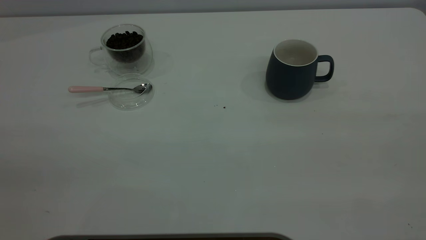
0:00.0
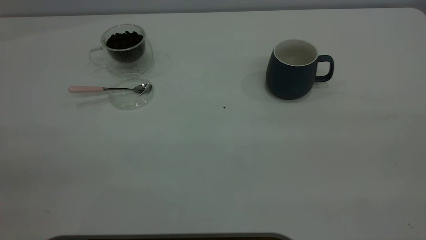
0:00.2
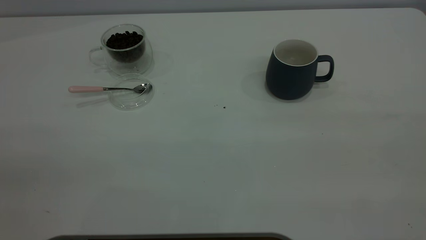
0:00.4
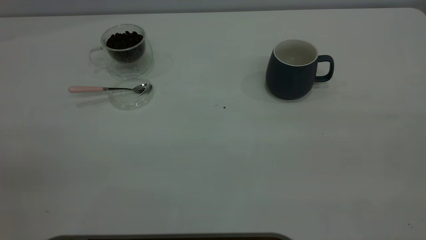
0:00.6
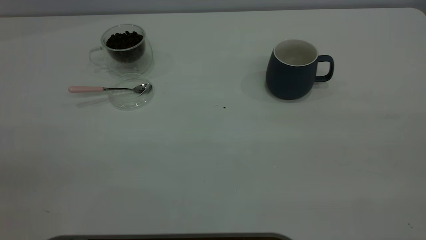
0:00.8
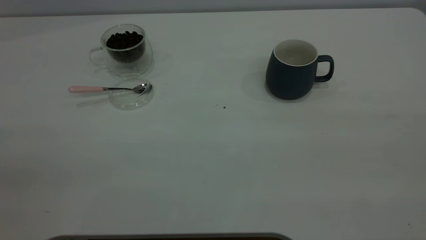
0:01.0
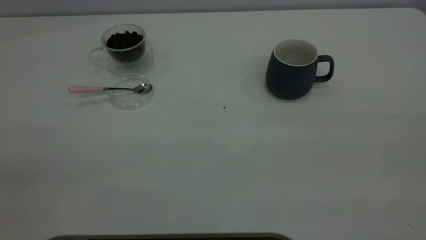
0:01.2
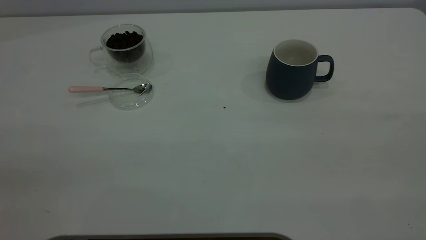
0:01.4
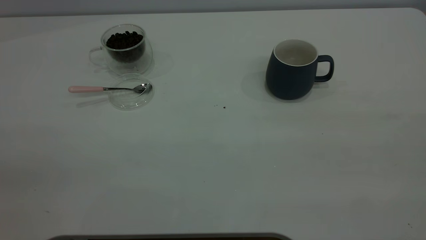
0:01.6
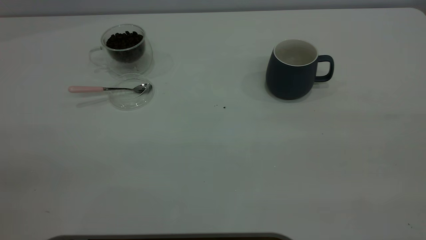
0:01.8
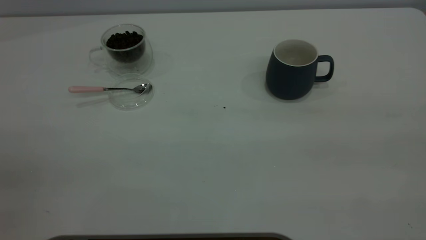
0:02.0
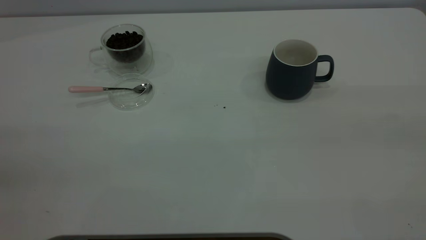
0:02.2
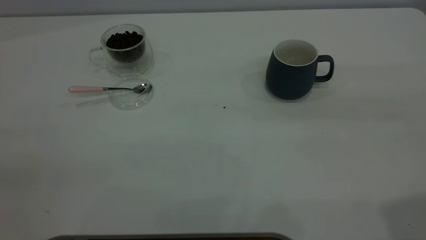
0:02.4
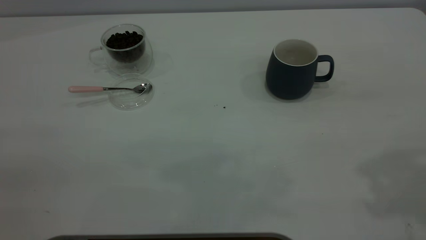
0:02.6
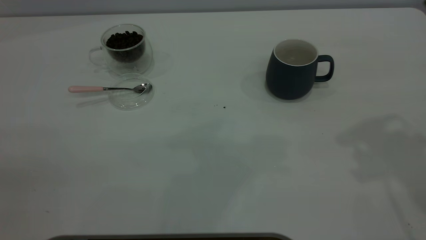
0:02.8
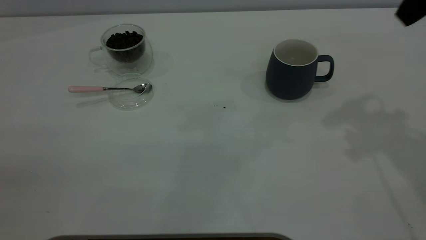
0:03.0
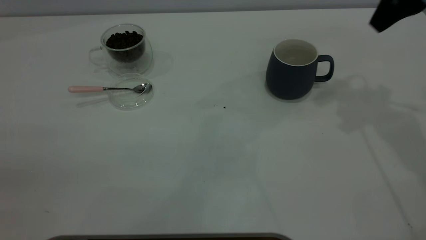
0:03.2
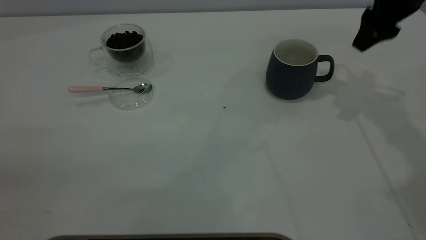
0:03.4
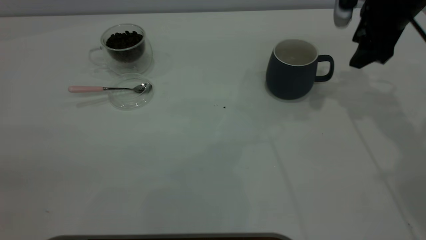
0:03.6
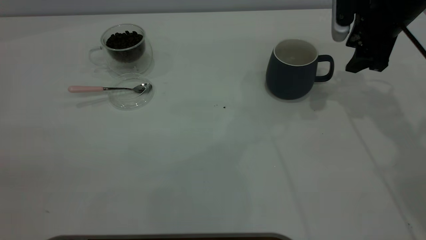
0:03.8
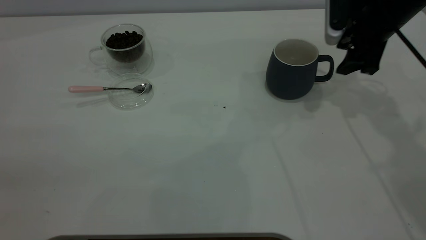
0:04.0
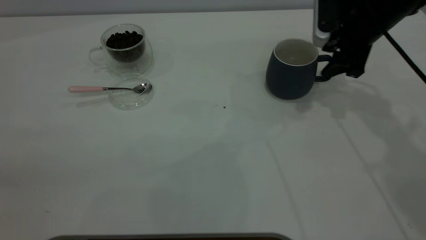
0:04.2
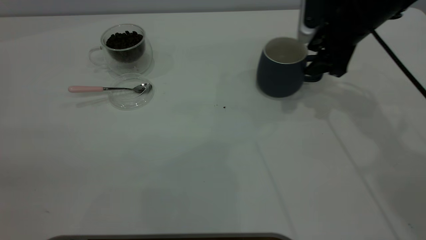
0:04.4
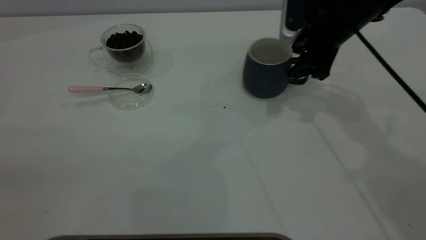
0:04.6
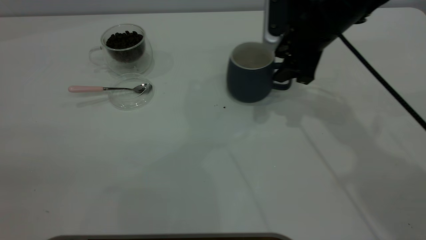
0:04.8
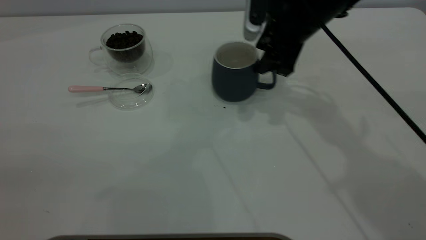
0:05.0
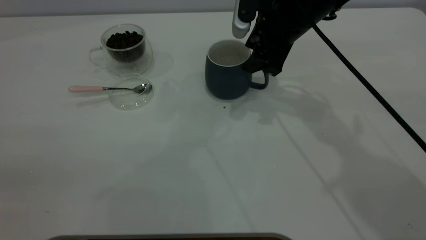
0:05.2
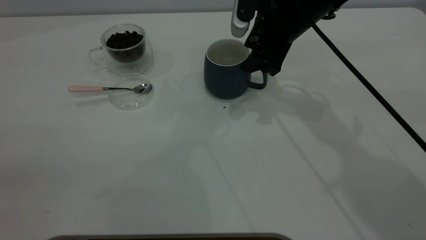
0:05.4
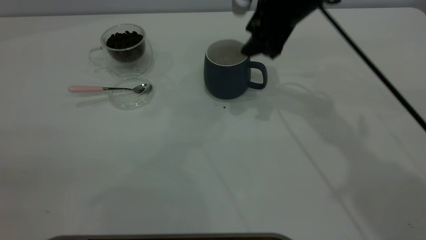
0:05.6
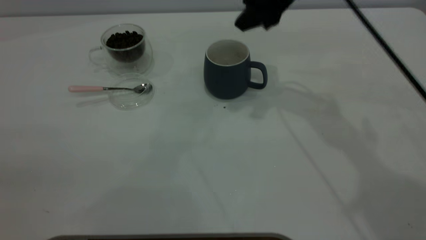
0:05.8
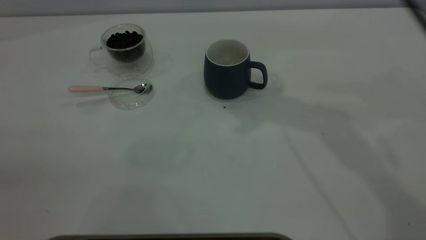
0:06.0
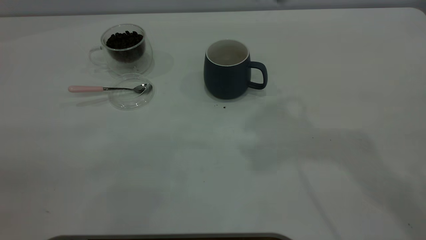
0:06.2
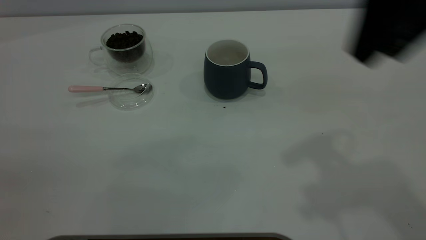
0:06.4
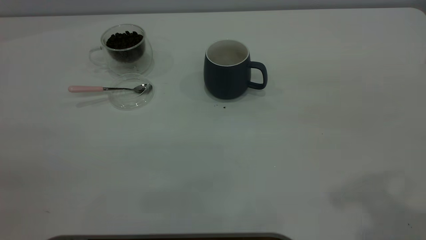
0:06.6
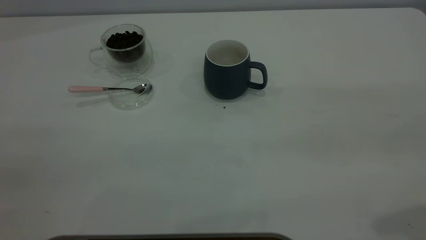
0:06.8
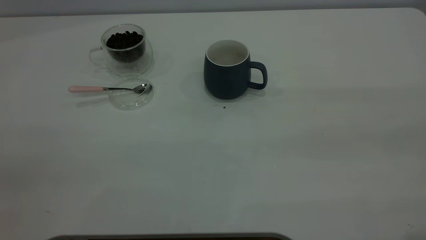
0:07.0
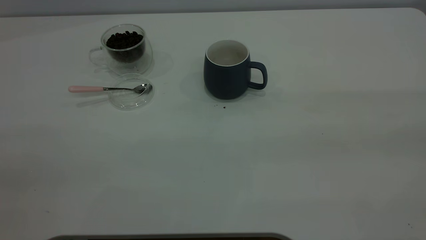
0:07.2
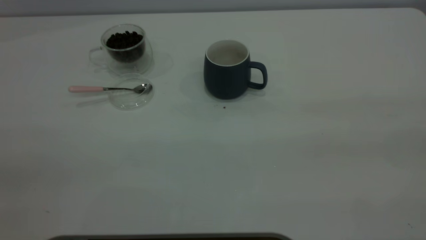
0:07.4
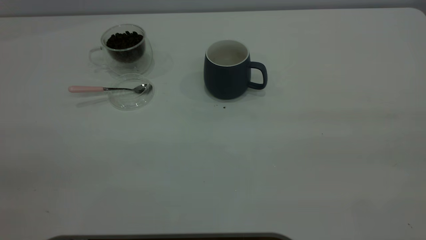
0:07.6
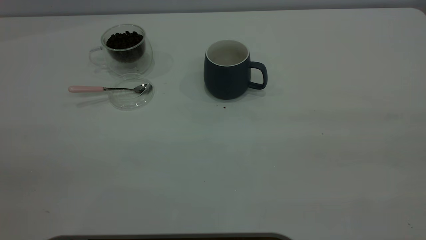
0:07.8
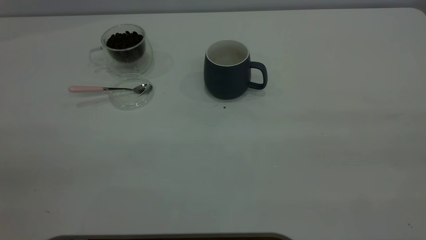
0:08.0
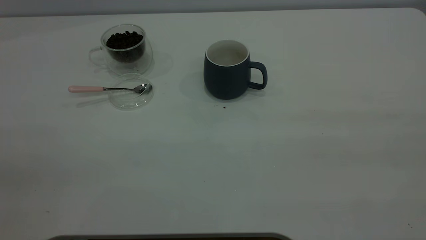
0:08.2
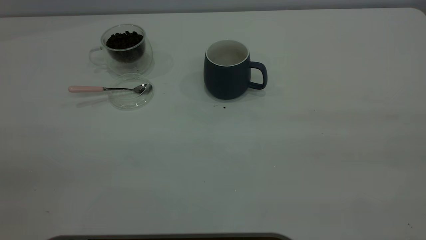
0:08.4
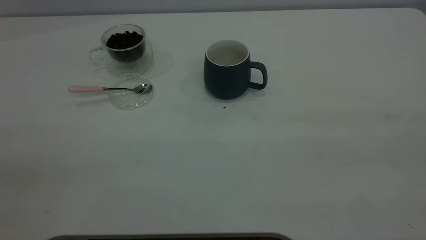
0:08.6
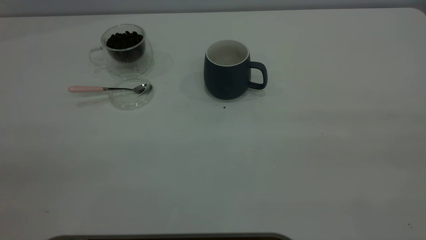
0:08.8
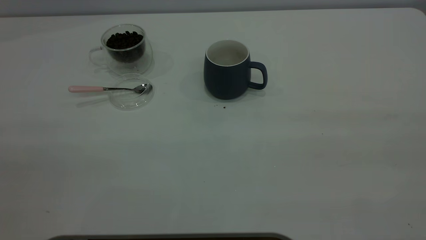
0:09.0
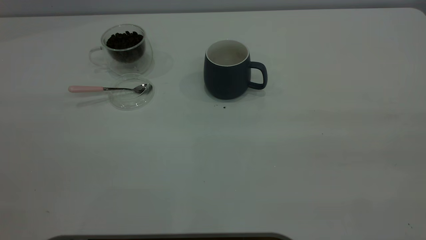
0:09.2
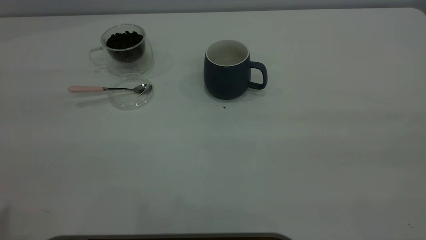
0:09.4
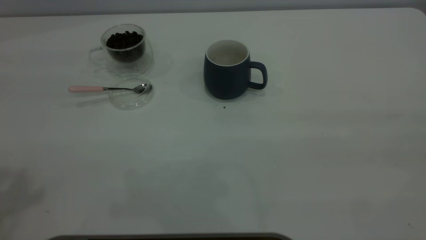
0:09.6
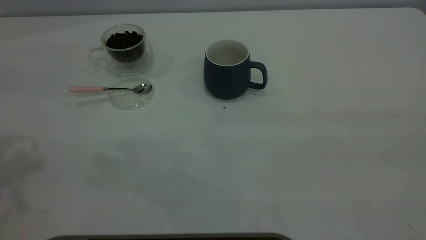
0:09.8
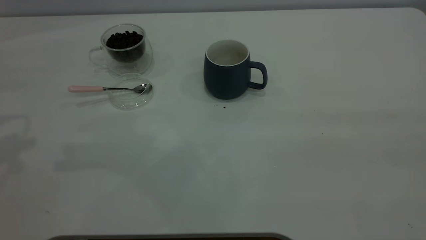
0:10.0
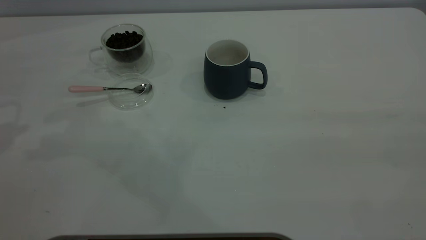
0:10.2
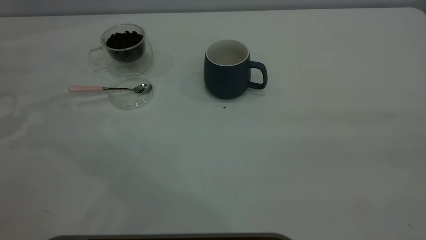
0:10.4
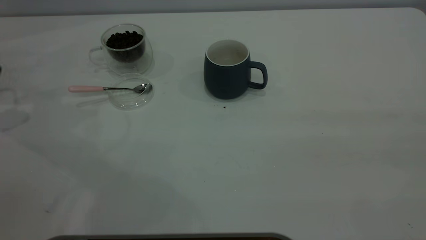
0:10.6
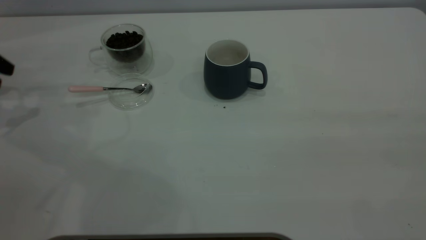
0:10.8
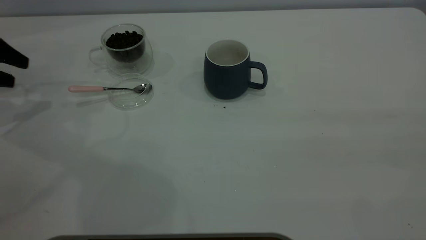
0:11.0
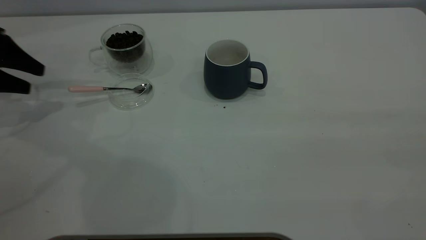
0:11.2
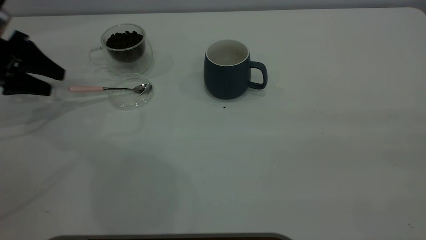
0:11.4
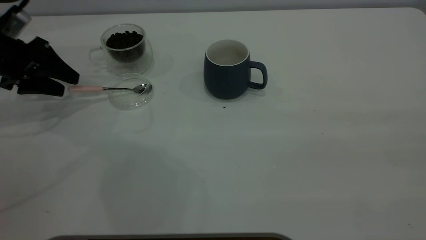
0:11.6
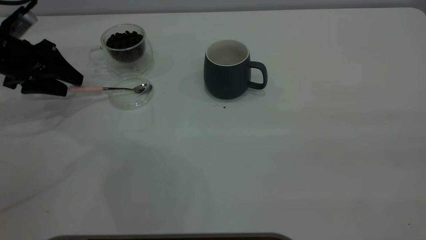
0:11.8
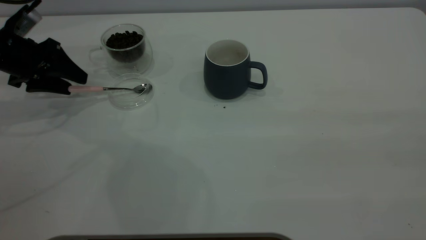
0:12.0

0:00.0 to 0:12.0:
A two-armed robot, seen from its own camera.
Task of the whole recording: the right gripper place the grey cup in the center of the table, the left gripper take the pink spoon from the cup lid and scoop out the coffee beans from the coffee cup and put them into the grey cup, the left gripper put the spoon back into the cup lid.
Step, 0:00.0 to 0:05.6: Move the cup to the center of view.
0:00.0 to 0:01.6: Both grippers stay put.
0:03.0 to 0:04.4: The right gripper shifts about 20 cm downward and forward.
0:04.4 to 0:06.0: The right gripper moves upward and to the left, roughly 20 cm, and closes up.
0:10.4 to 0:12.0: The left gripper heads downward, to the right and forward, covering approximately 15 cm.

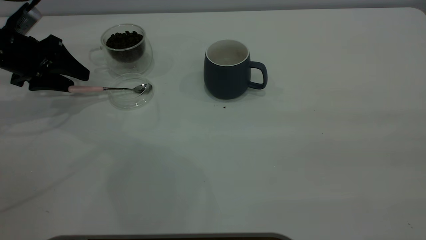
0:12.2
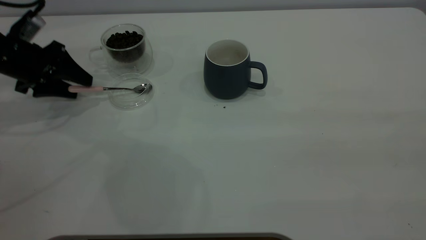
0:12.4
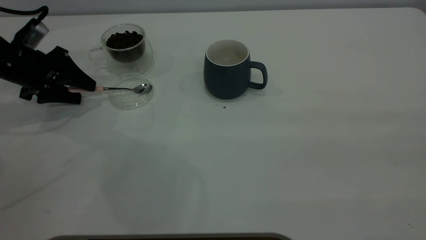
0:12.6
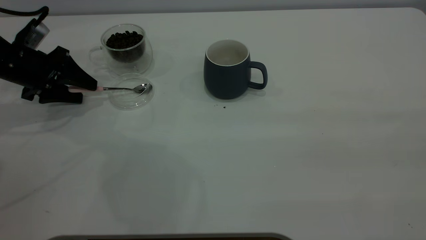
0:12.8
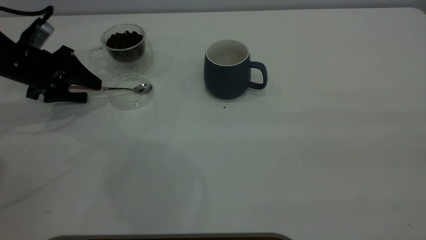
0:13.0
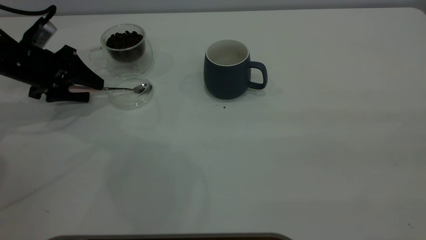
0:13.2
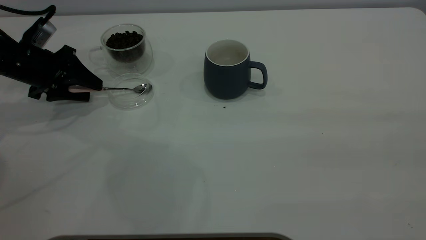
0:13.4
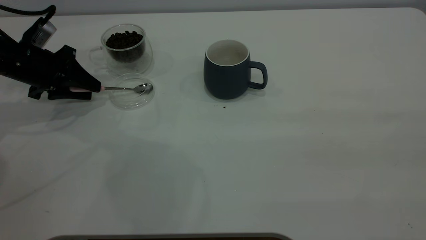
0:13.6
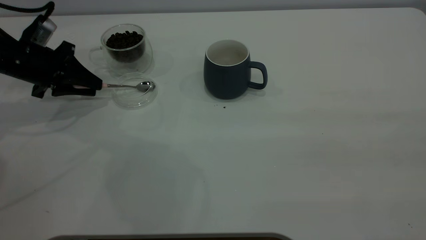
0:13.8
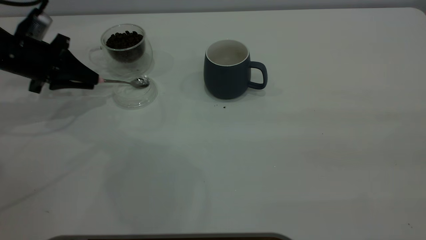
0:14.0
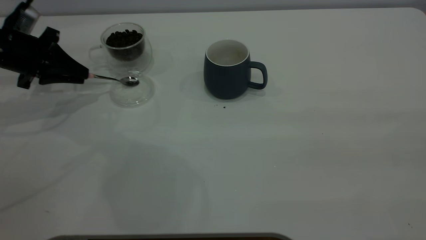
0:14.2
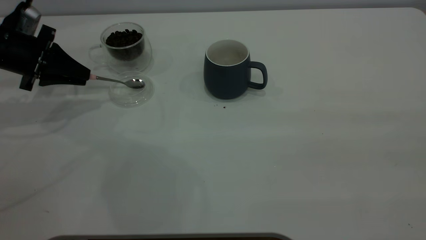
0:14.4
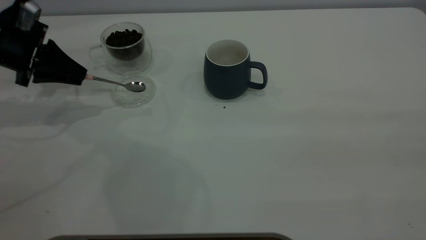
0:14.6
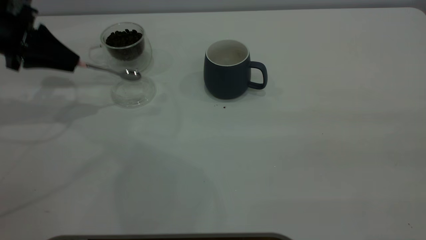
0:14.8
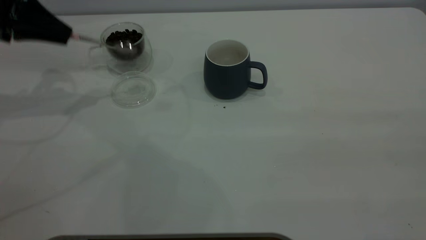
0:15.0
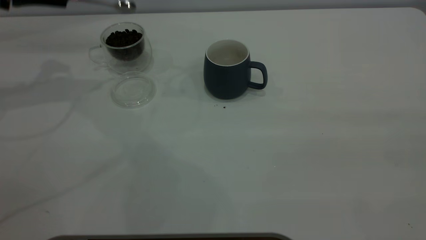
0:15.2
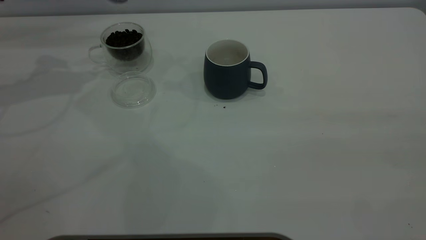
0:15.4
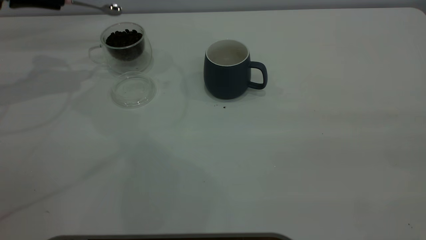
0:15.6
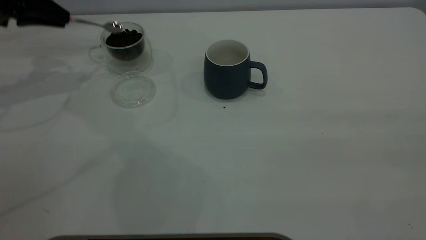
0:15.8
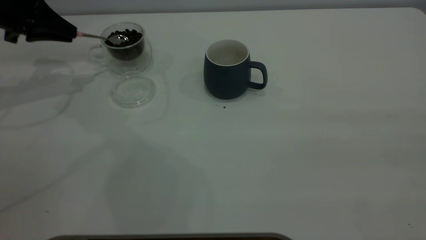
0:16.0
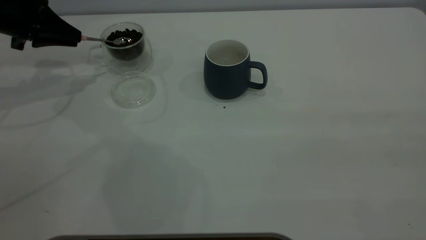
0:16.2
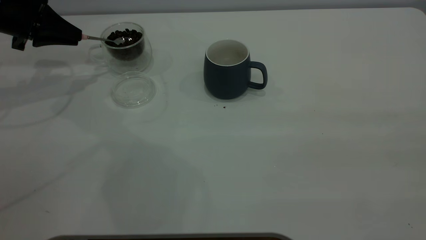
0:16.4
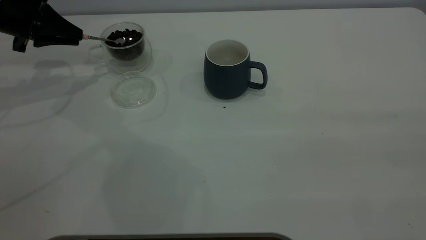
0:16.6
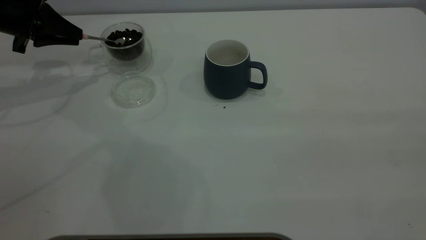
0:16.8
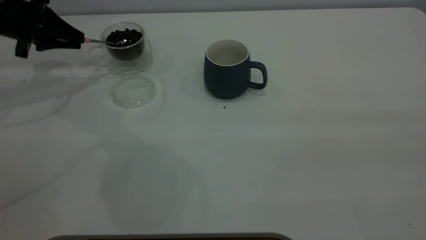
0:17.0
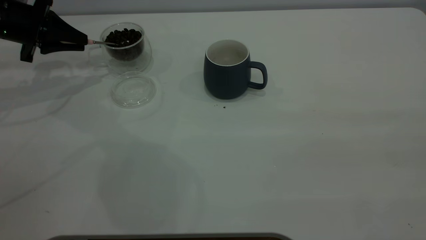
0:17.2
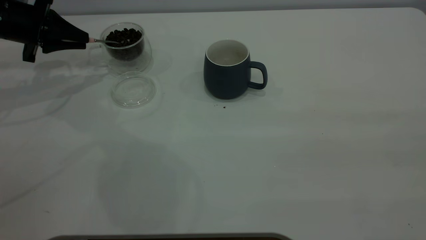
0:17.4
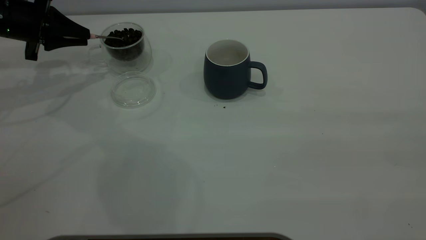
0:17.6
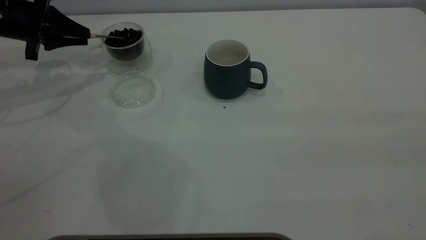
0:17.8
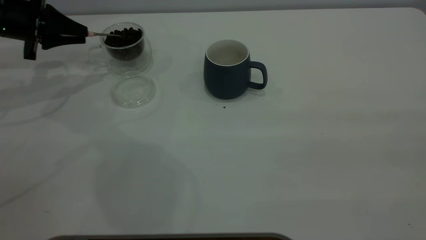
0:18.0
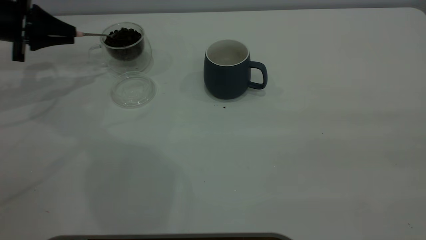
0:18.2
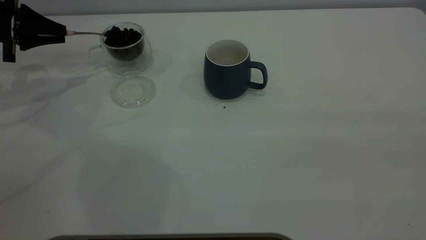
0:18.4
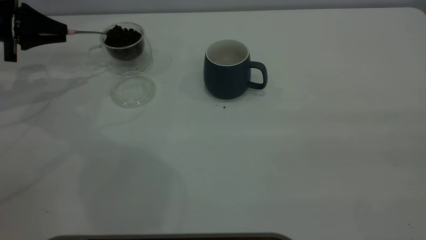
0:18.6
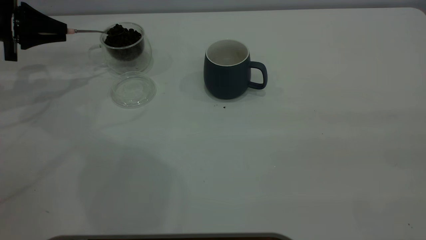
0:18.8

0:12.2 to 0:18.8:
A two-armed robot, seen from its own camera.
Task of the whole recording: the right gripper place the grey cup in the center of the table, the left gripper take the pink spoon from the cup lid and scoop out the coffee beans from the coffee cup and put them into the grey cup, the left gripper put the spoon back into the cup lid.
Step, 0:12.2 to 0:14.8: Pick up the spoon.
0:12.2 to 0:13.8: The left gripper closes.
0:13.8 to 0:15.4: The left gripper moves upward, roughly 15 cm.
0:15.4 to 0:17.2: The left gripper shifts approximately 10 cm downward.
0:17.2 to 0:18.8: The grippers move only a little.
